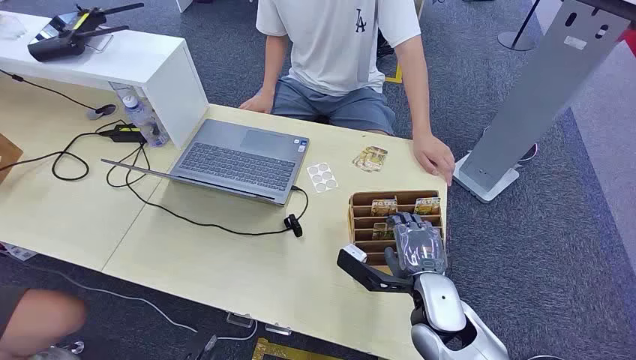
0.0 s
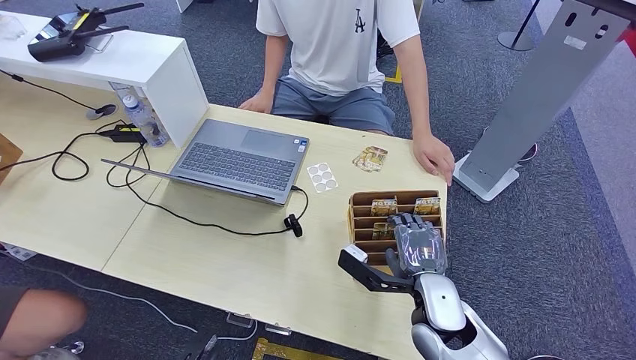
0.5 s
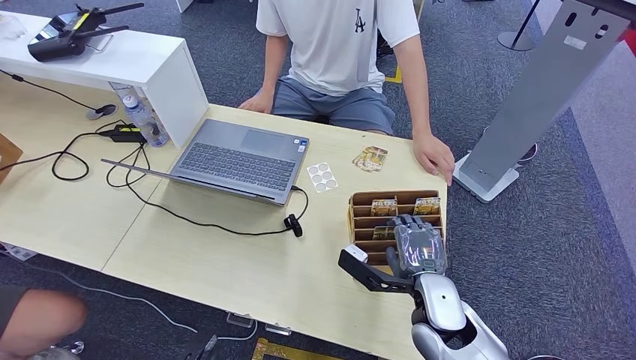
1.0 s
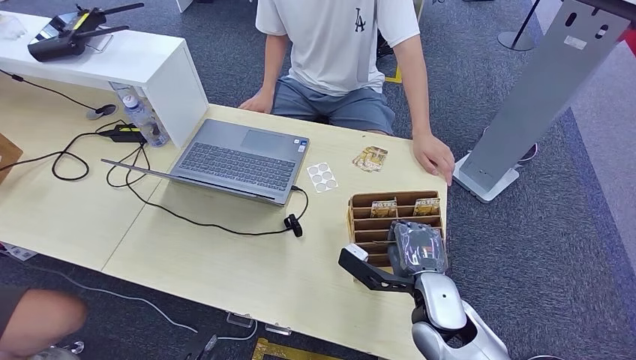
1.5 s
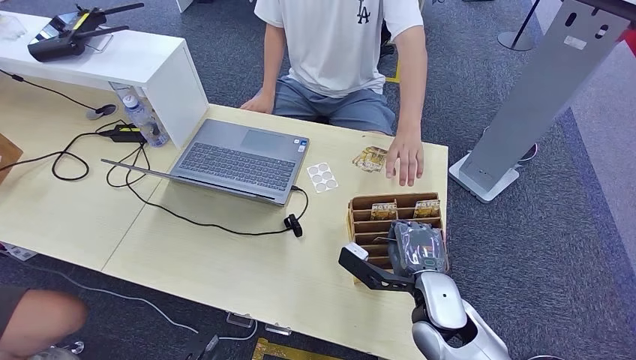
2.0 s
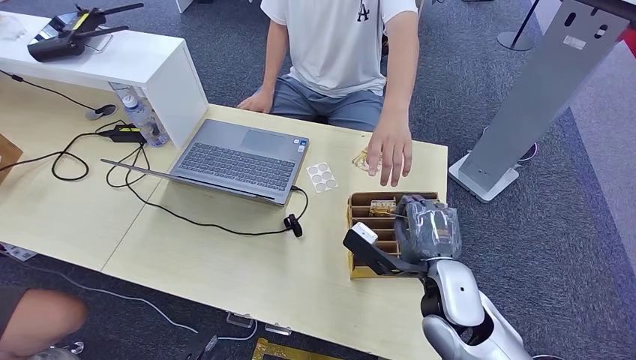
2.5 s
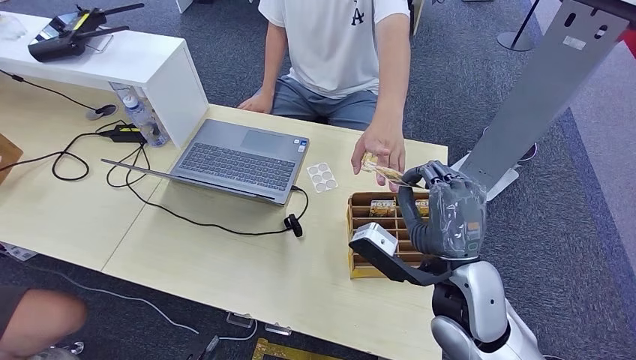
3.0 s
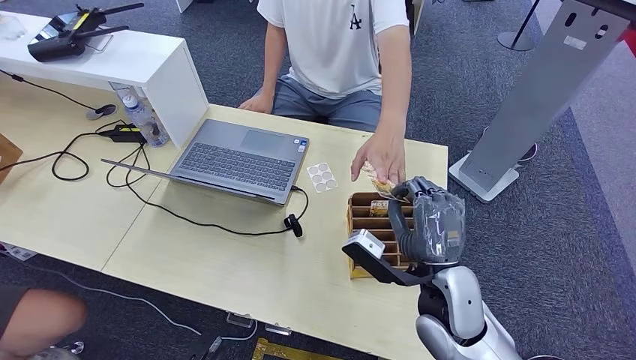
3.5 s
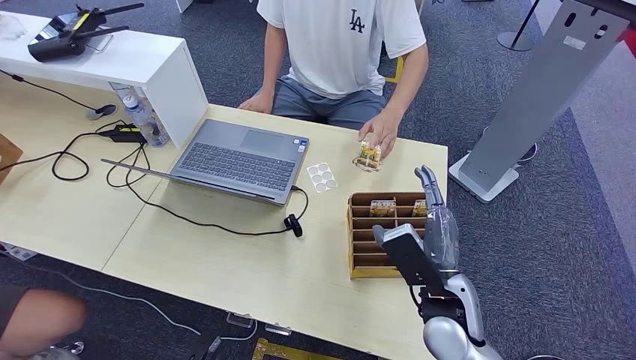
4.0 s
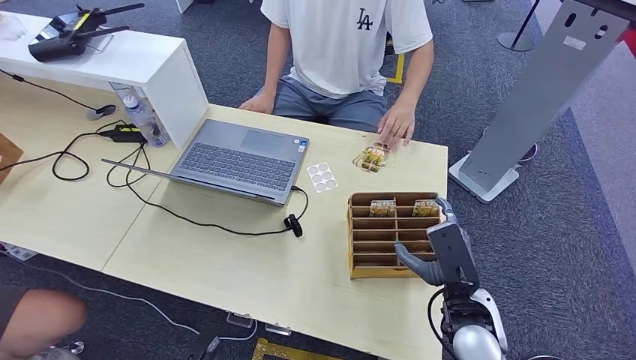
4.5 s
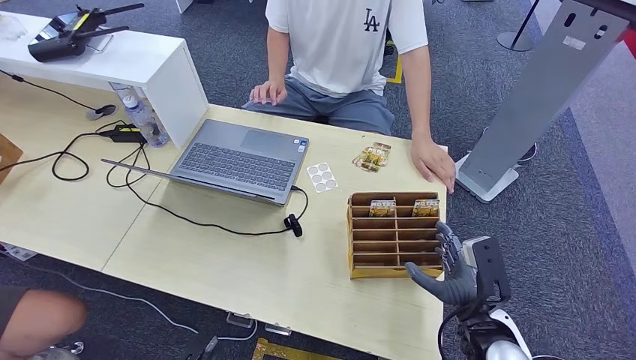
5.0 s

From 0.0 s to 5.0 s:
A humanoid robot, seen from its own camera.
Step, from 0.0 s to 2.5 s: Pick up the key card from the card box.
Step, from 3.0 s to 5.0 s: Hand the key card to the target.
From 2.5 s to 5.0 s: The right hand is displaced to the right and downward by about 10 cm.
